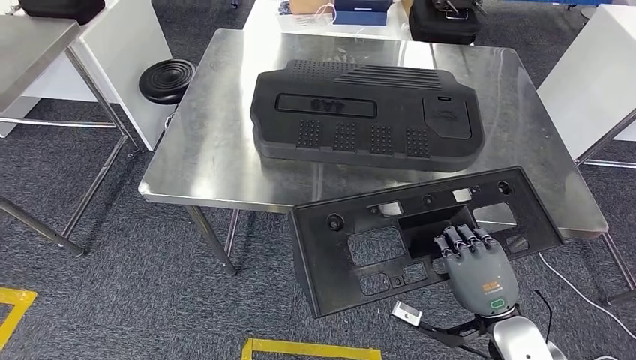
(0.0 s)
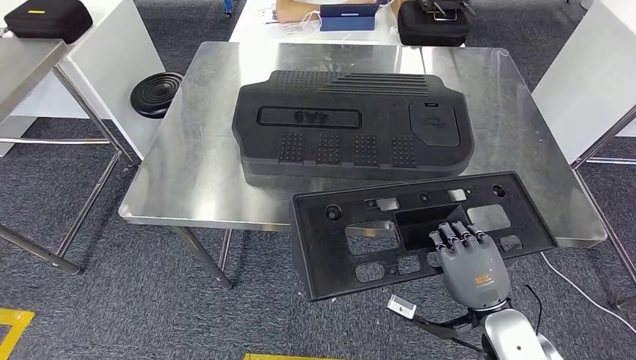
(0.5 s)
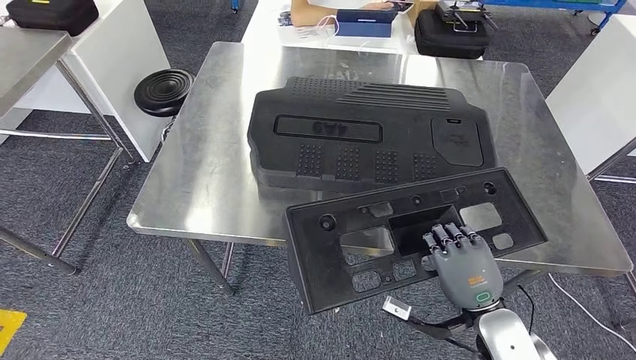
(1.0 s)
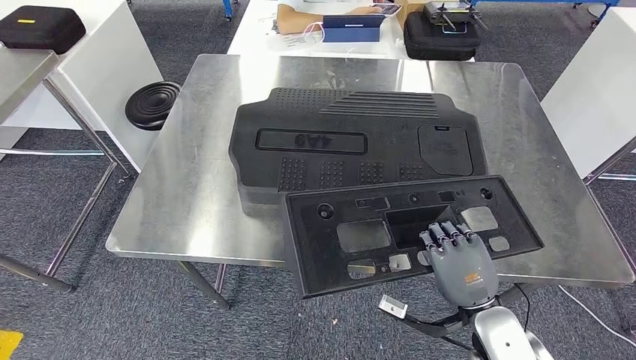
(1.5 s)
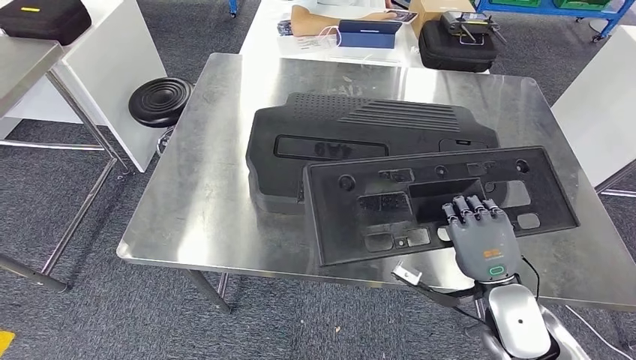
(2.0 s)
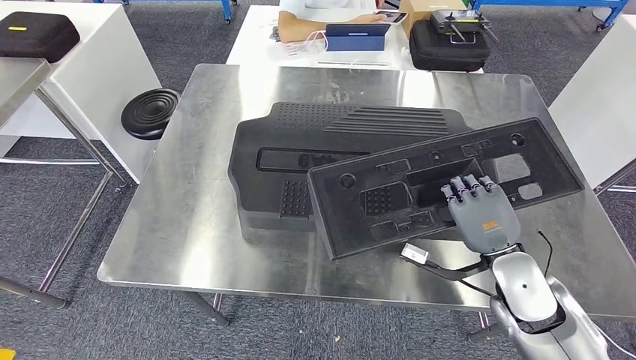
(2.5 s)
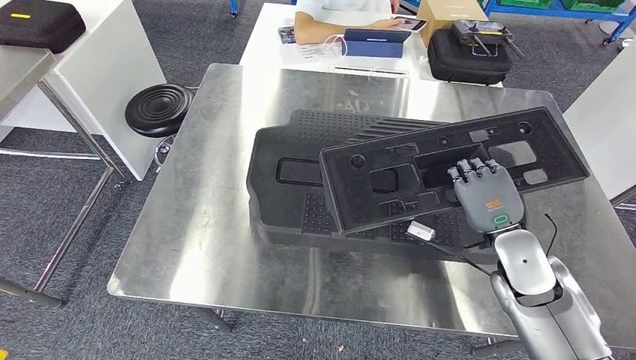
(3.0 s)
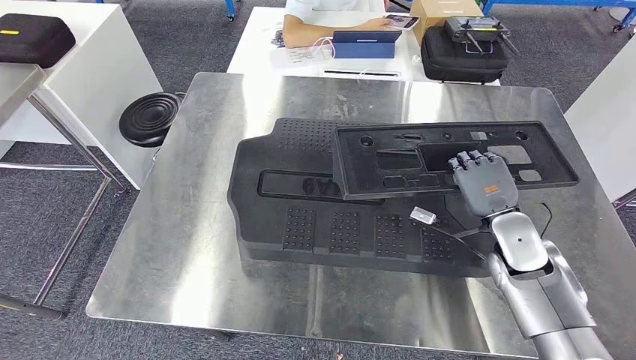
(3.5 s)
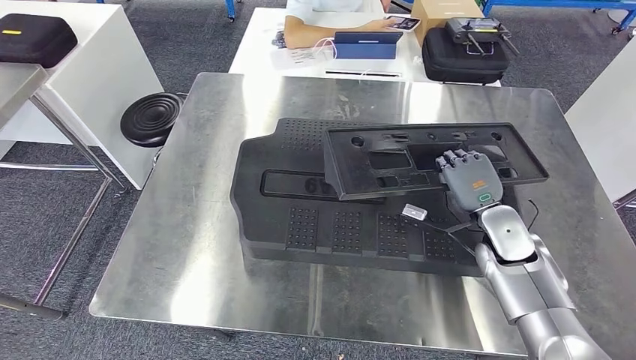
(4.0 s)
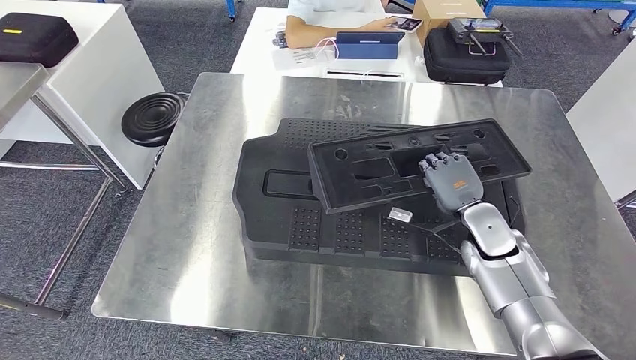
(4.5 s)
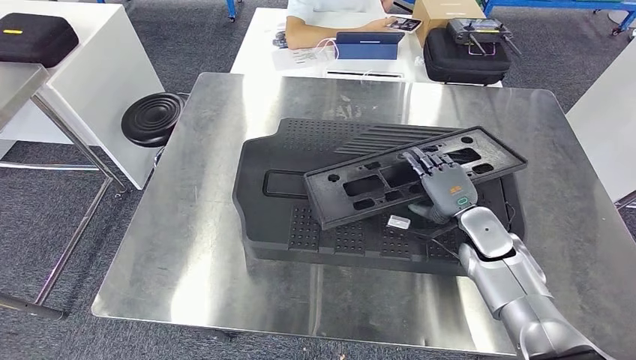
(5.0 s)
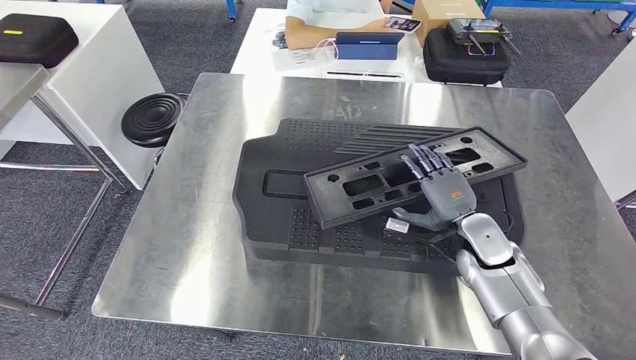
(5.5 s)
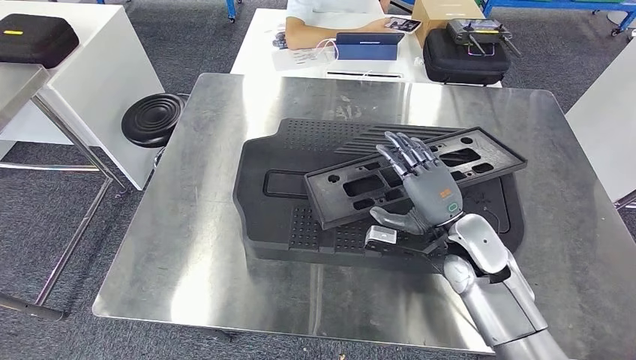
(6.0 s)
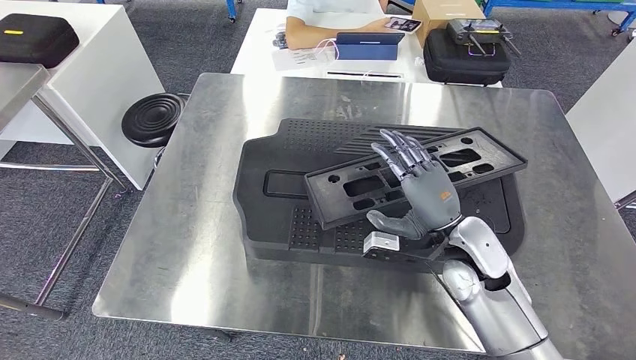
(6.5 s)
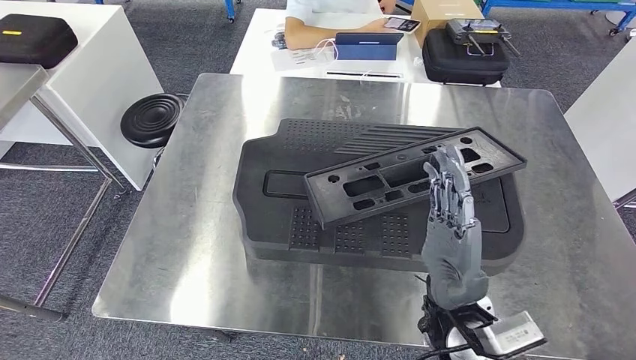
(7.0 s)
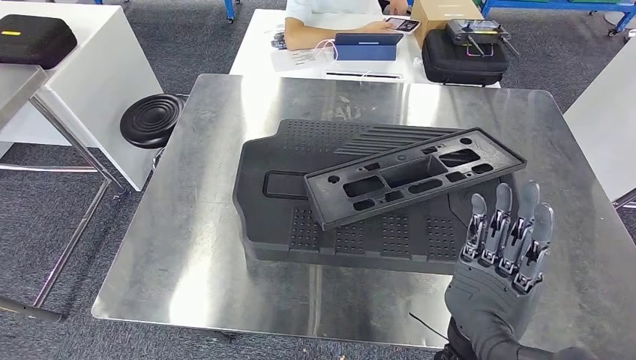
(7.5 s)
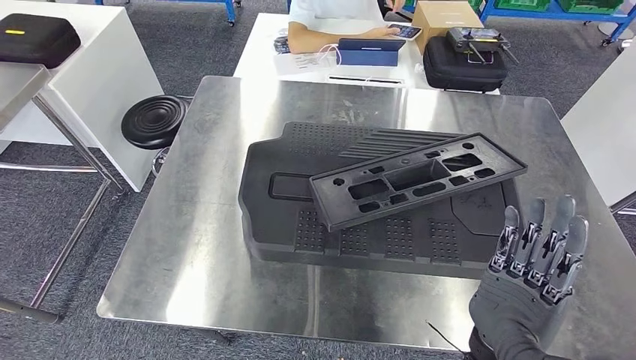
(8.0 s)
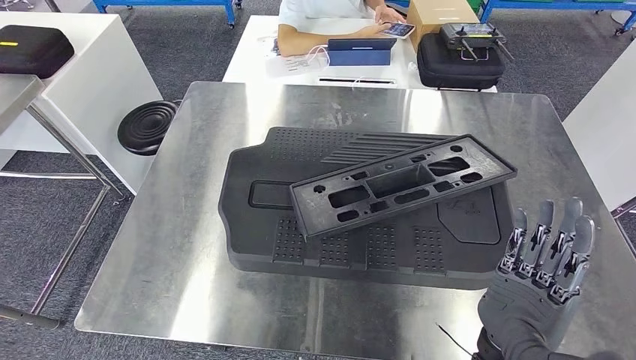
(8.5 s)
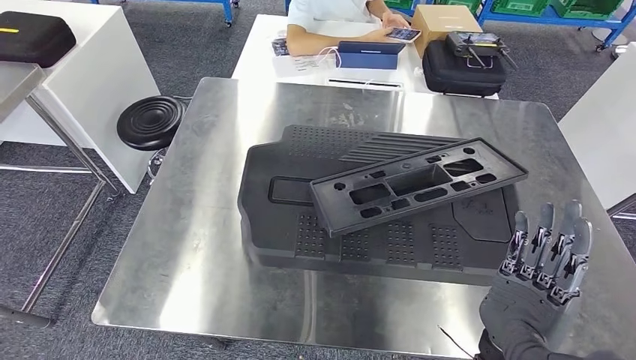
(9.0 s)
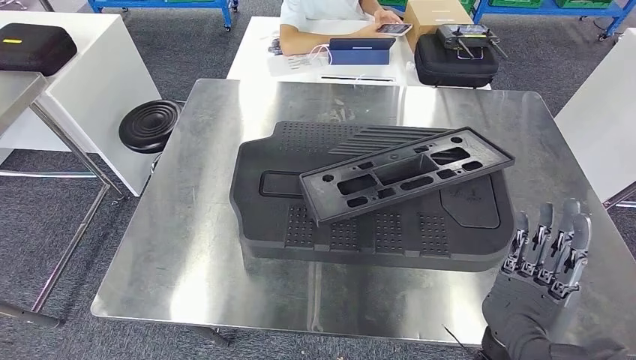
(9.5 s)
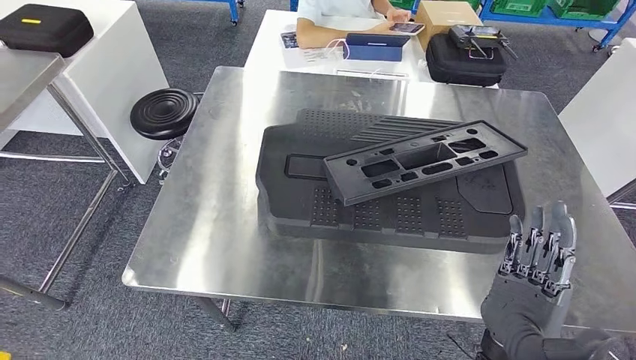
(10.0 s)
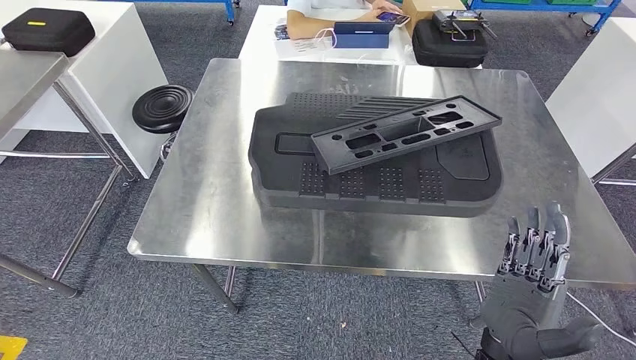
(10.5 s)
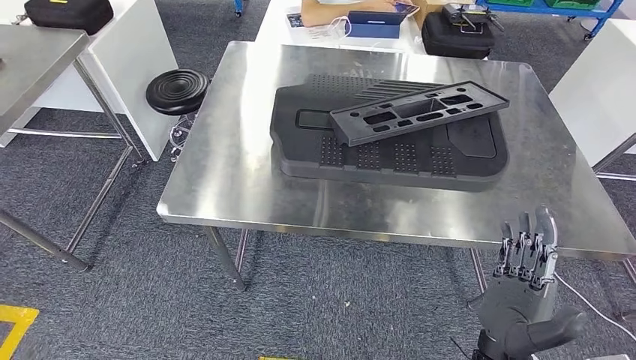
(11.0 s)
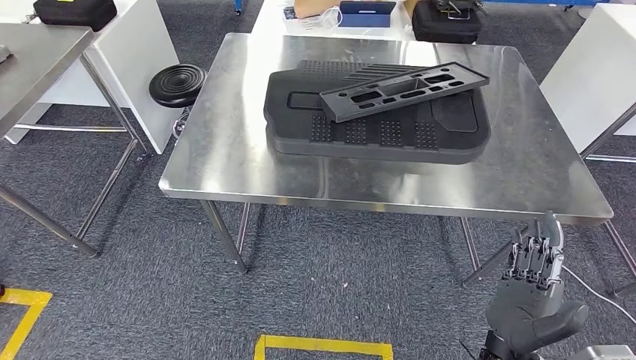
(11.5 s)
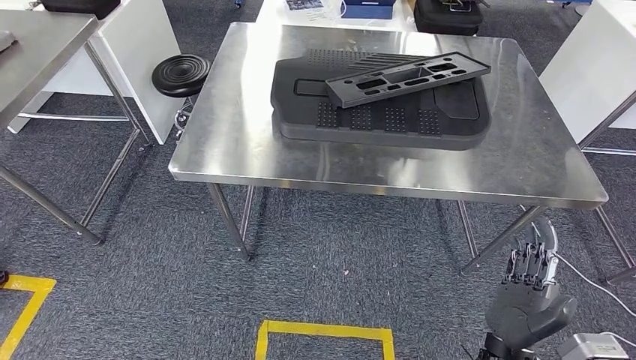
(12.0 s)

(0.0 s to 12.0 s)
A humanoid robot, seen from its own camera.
Step, 0.0 s - 6.5 s: Insert the large material into the corresponding slot on the workbench.
4.0 s - 6.0 s: The right hand moves to the left, about 10 cm.

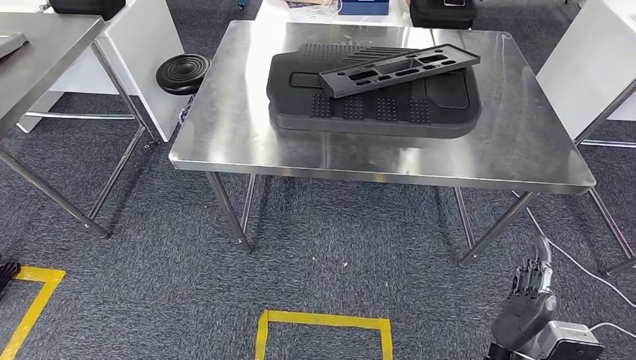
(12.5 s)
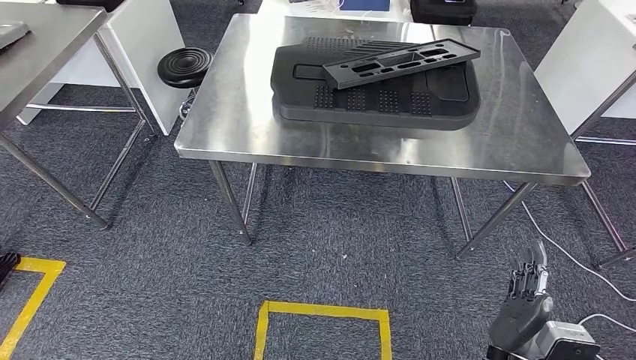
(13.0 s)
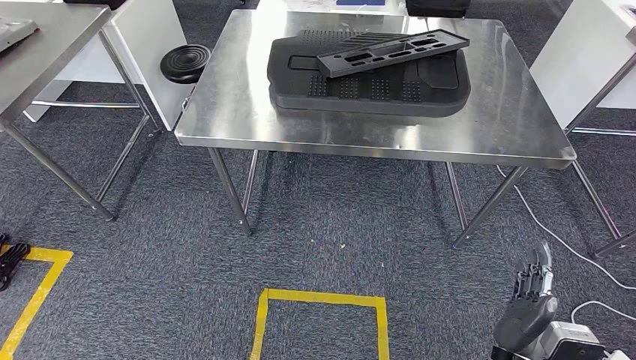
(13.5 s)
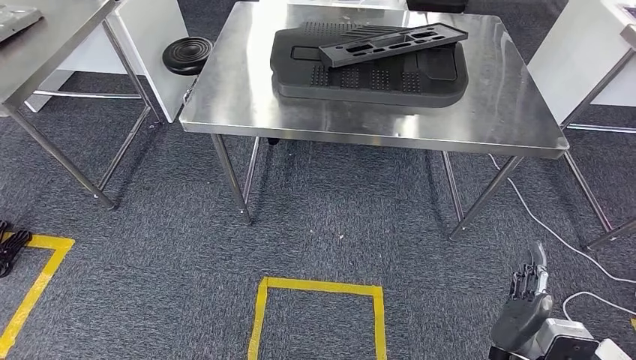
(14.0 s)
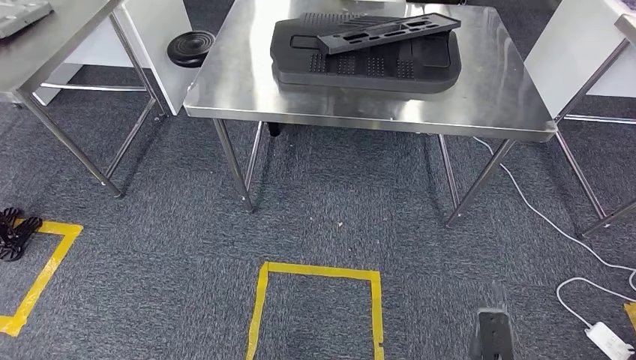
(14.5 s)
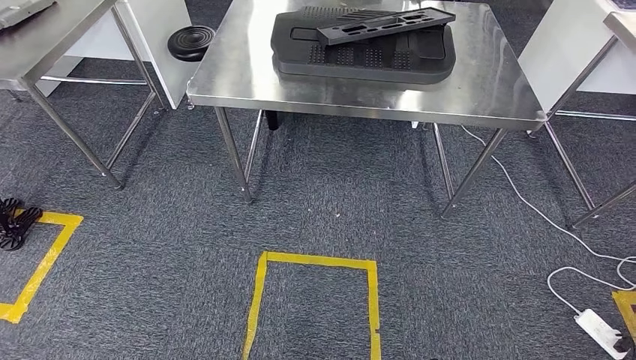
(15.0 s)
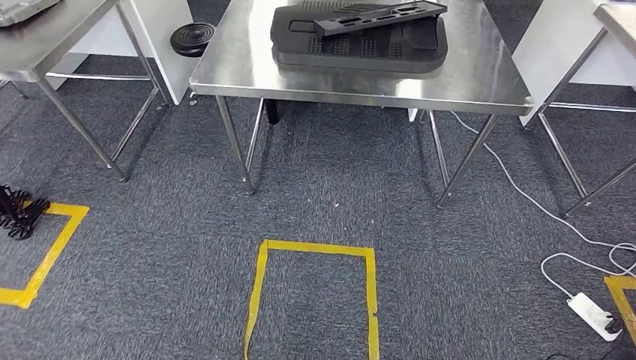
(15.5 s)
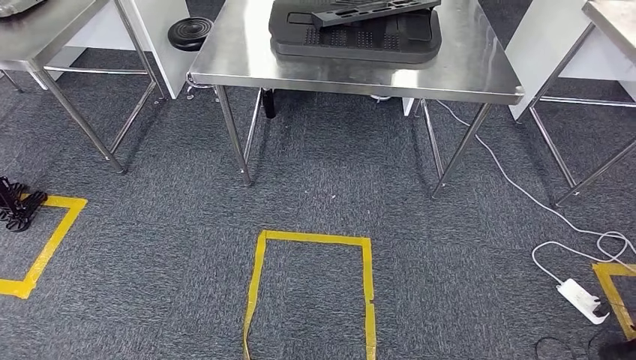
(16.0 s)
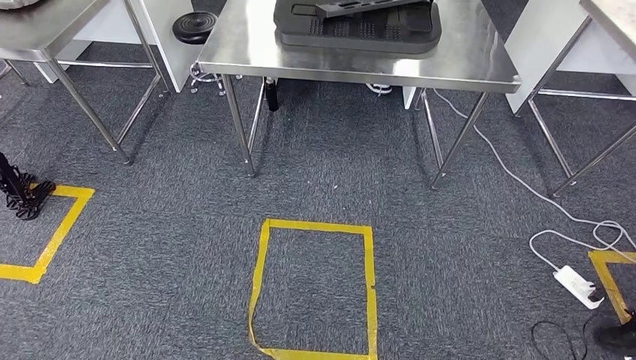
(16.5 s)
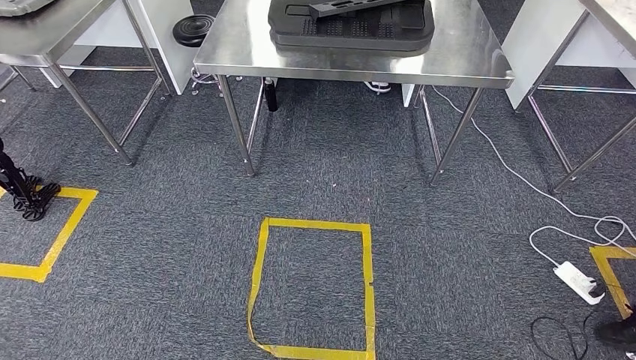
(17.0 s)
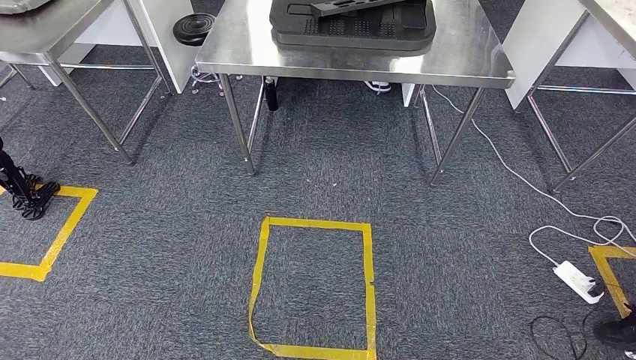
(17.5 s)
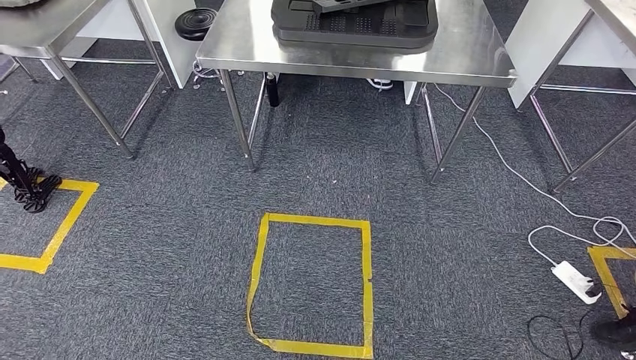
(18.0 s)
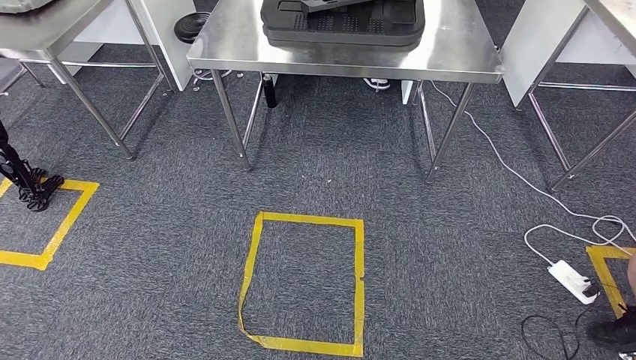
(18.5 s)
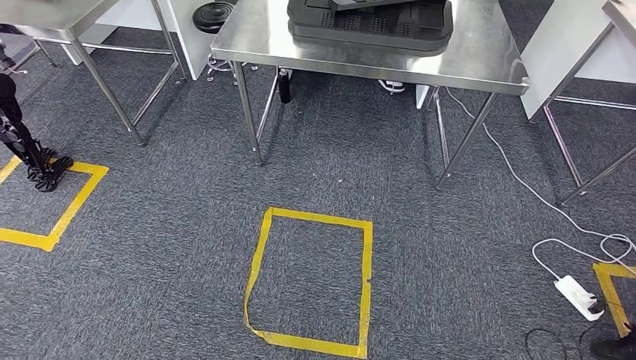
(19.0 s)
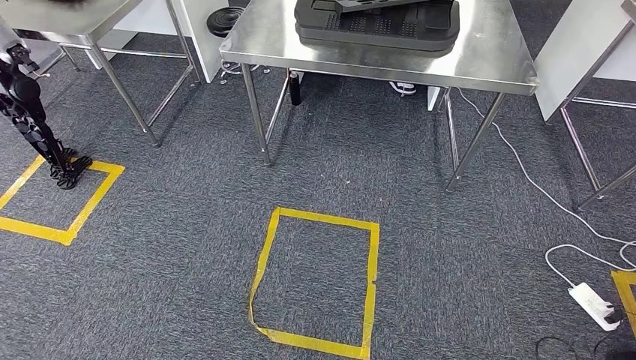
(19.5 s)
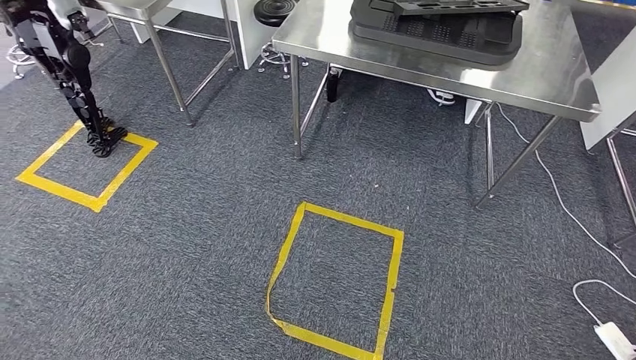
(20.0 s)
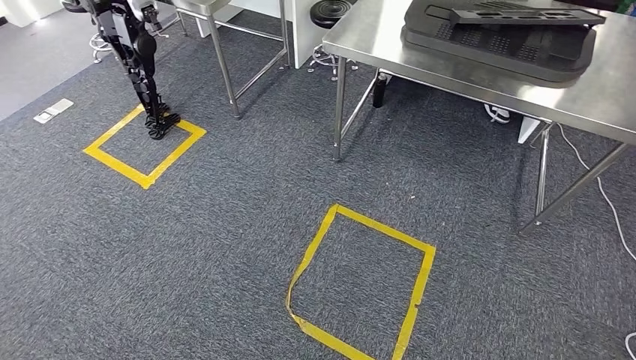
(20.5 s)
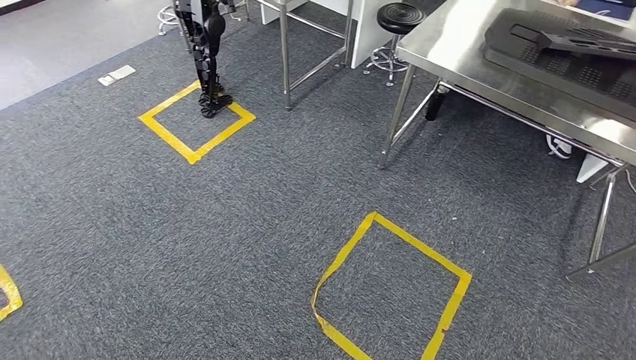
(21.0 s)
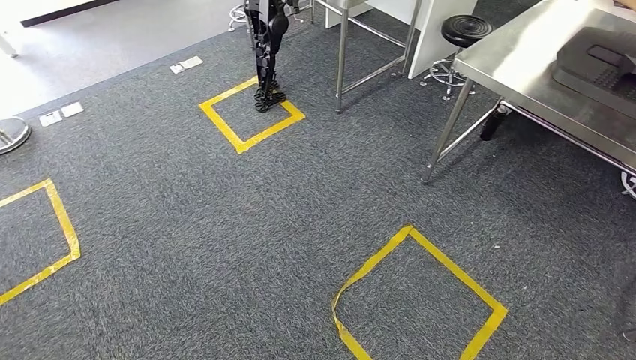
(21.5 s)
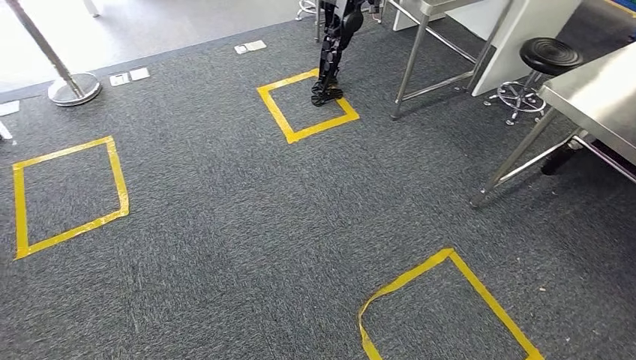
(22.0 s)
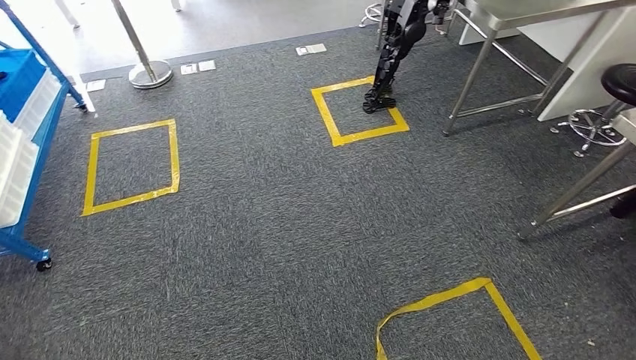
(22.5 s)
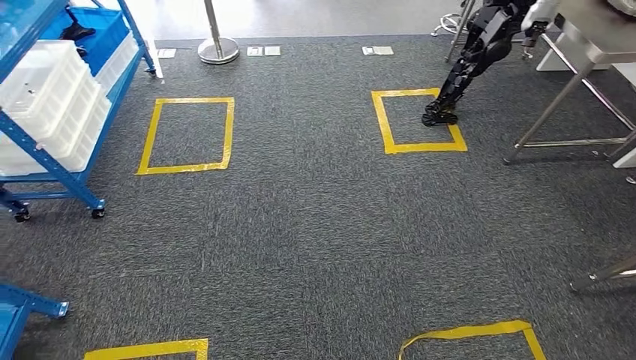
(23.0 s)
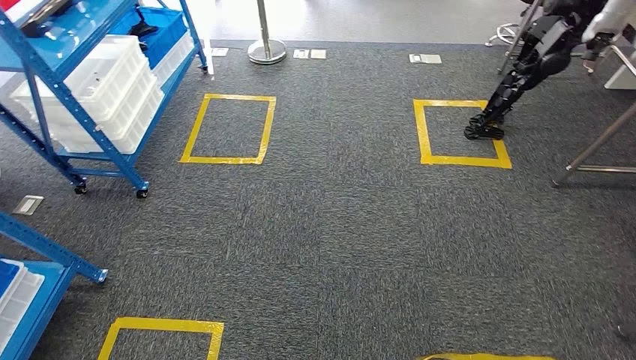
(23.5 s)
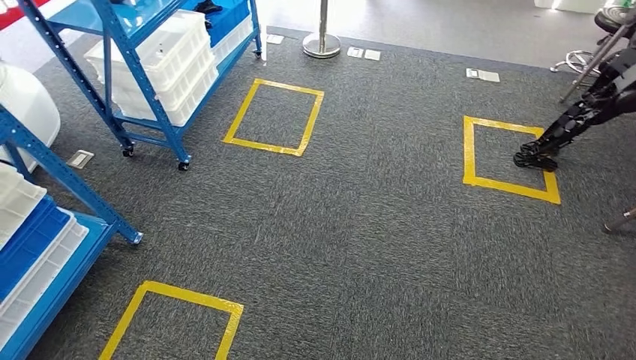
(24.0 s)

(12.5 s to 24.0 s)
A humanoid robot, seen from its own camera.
16.5 s - 18.5 s: The hands make only small movements.
